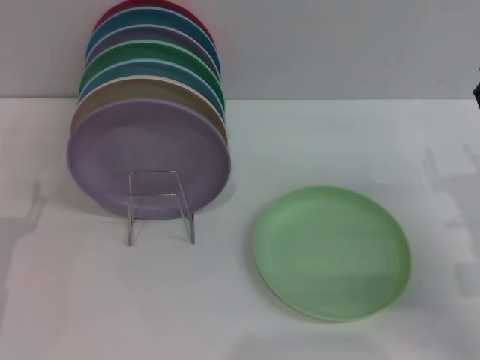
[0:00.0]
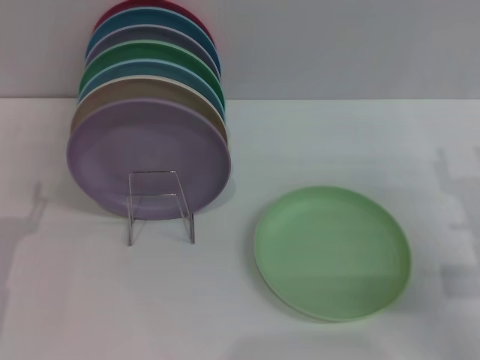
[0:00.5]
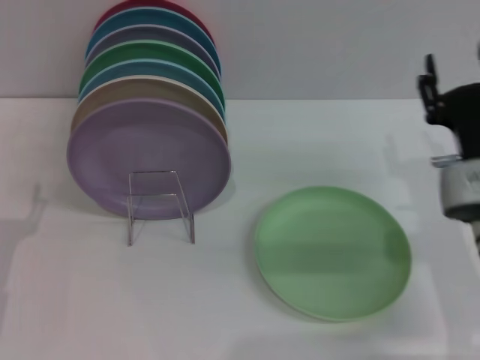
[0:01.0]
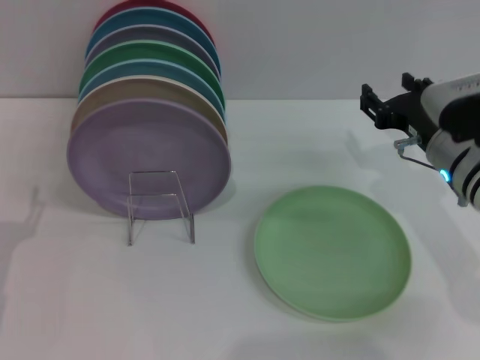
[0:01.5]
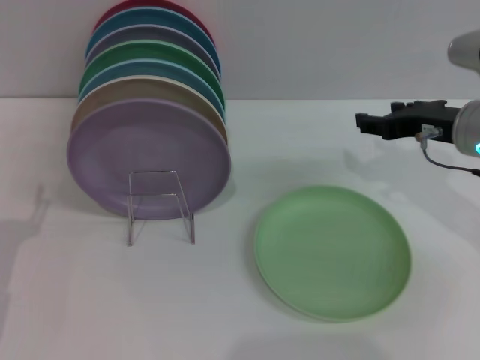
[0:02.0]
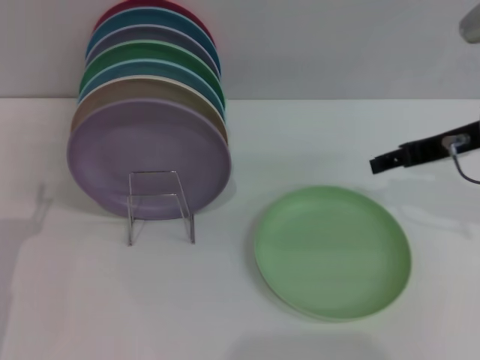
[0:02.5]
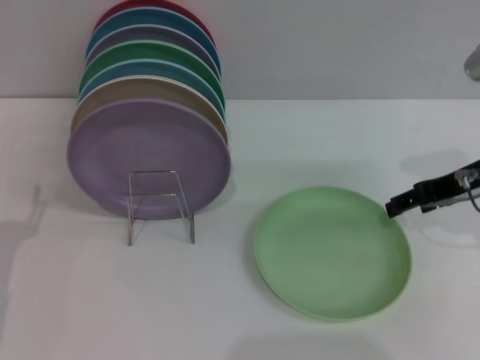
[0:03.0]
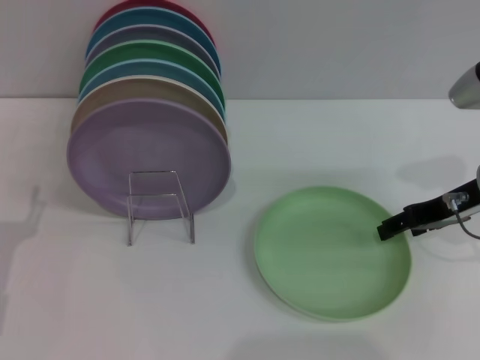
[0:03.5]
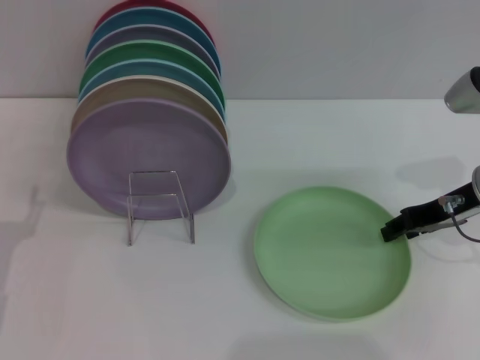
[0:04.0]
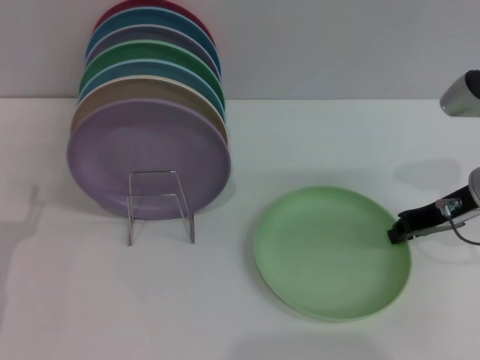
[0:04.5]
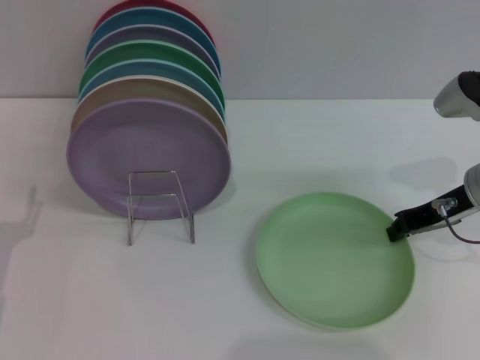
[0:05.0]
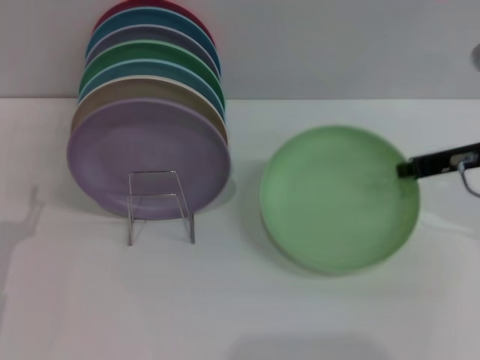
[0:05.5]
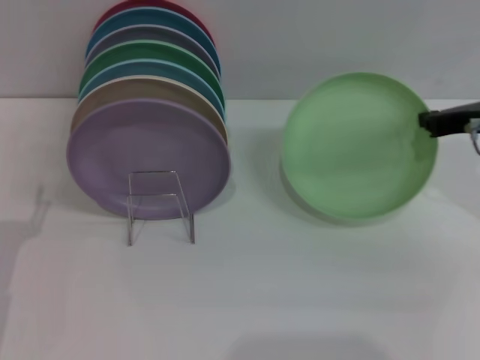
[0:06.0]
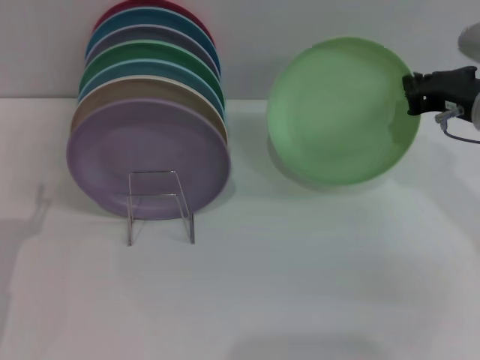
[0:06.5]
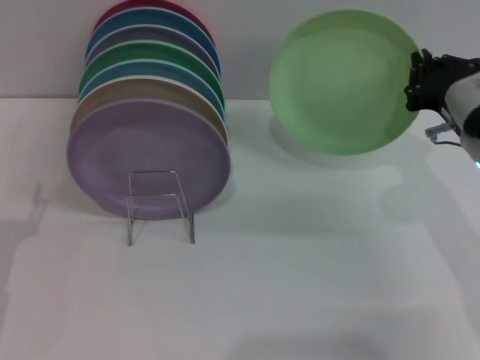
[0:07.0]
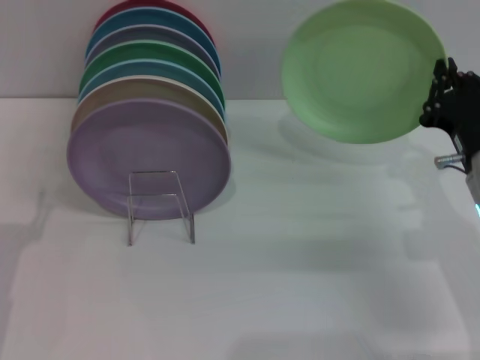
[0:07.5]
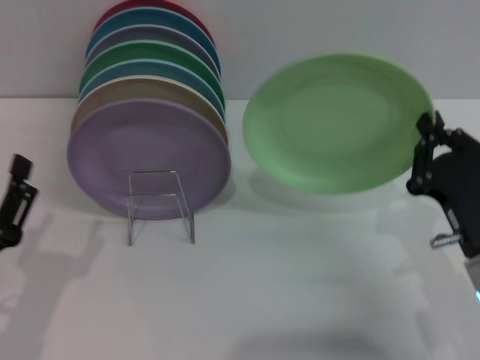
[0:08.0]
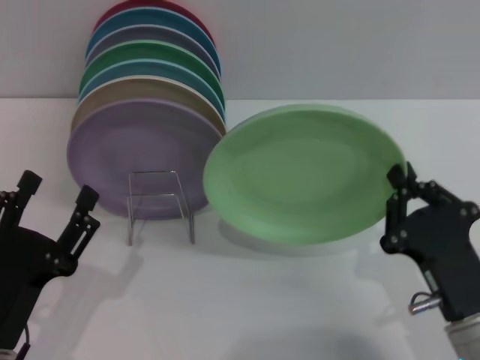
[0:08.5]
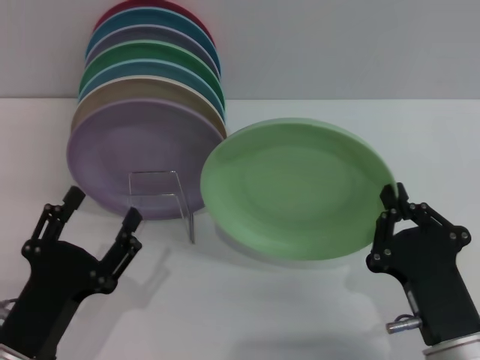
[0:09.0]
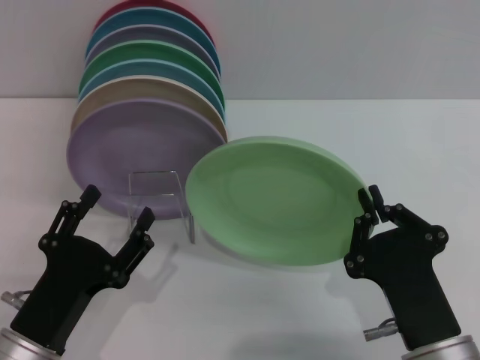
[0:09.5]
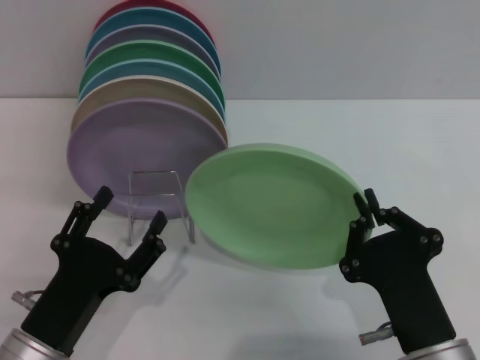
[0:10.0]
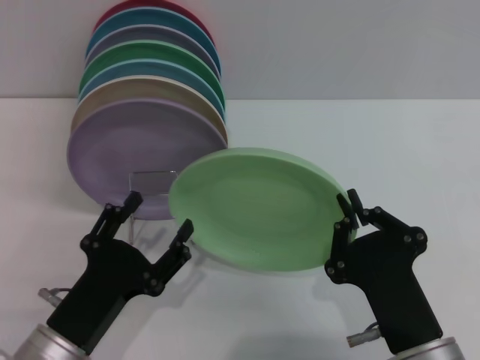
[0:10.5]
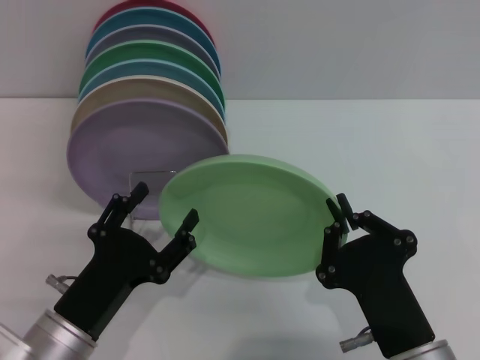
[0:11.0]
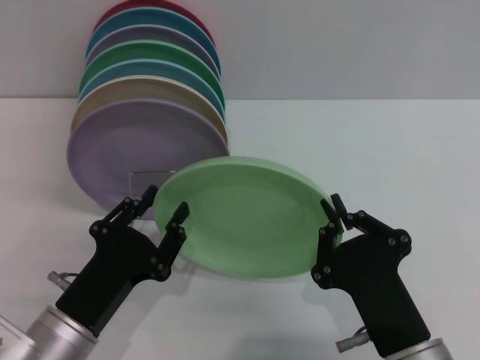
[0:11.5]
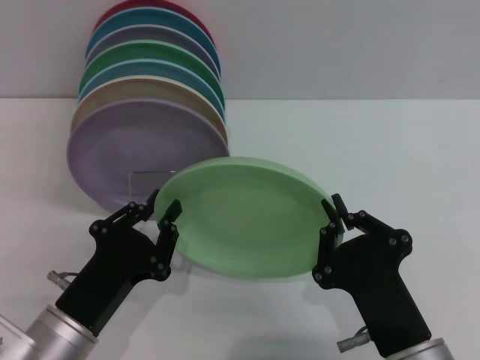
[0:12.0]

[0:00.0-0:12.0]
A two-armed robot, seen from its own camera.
Task of the whole recording: Grip the plate with one hand, pass it to the other, then set it on the shelf.
Step, 0:00.0 to 0:05.5: Pick up the plate with the right gripper.
0:00.0 to 0:02.0: The right gripper moves upward and forward, roughly 15 cm.
0:04.0 to 0:06.0: The right gripper closes up.
0:06.0 to 0:08.0: The right gripper travels backward, downward and to the left by some 20 cm. The left gripper moves about 5 cm.
0:08.0 to 0:10.0: The left gripper travels to the right by roughly 5 cm. The right gripper heads backward and to the left, covering about 10 cm.
0:10.0 to 0:12.0: The left gripper closes.

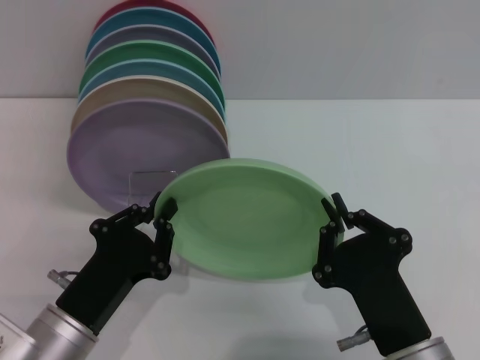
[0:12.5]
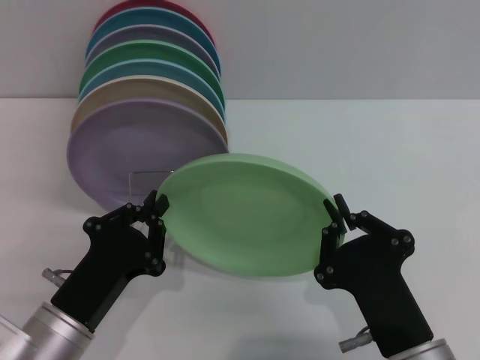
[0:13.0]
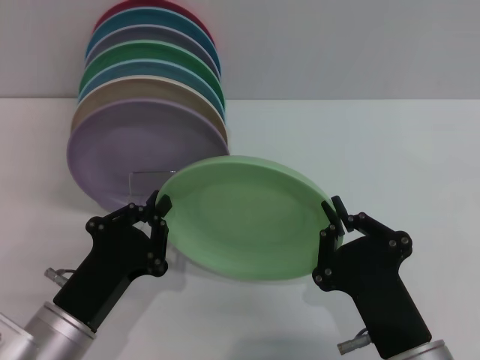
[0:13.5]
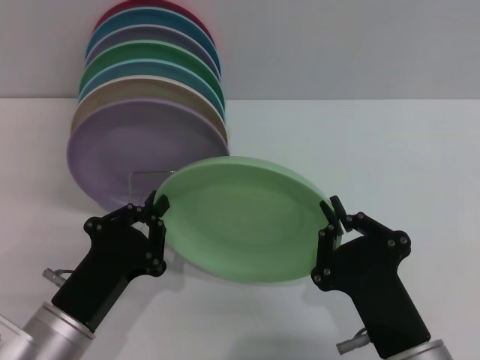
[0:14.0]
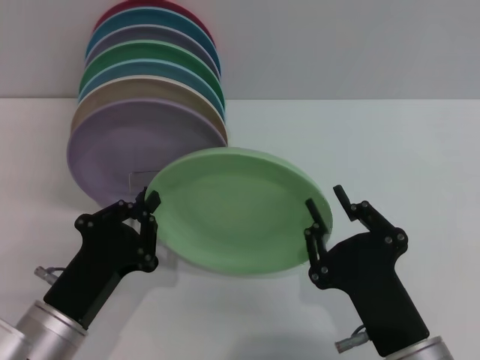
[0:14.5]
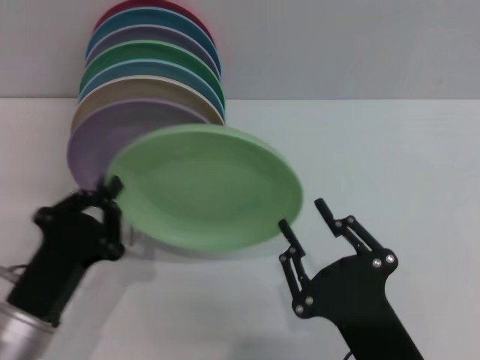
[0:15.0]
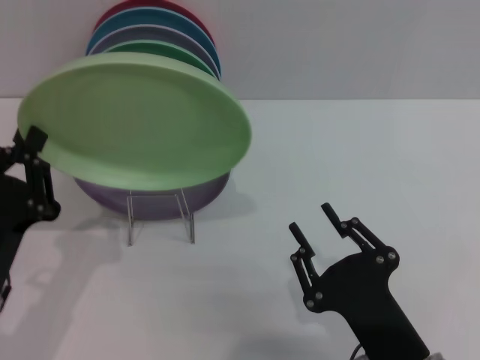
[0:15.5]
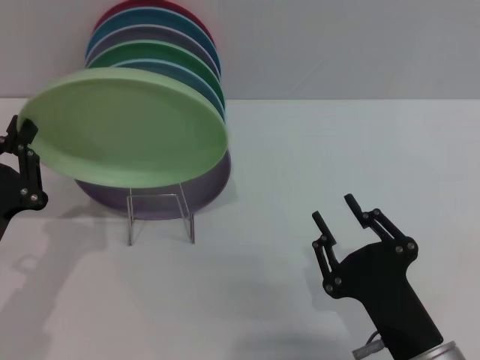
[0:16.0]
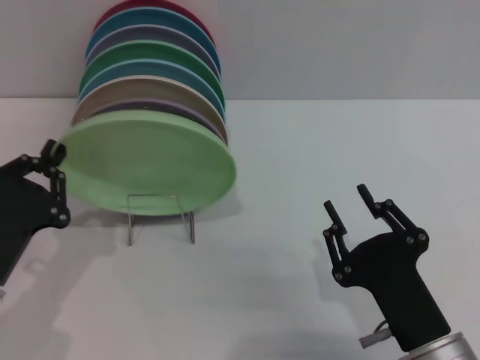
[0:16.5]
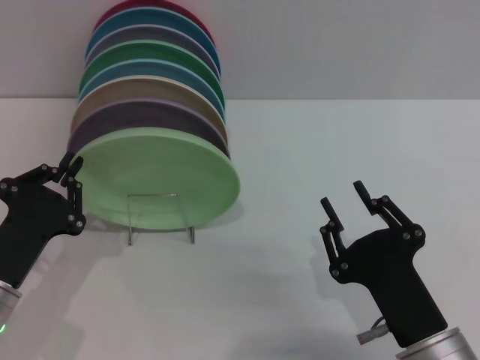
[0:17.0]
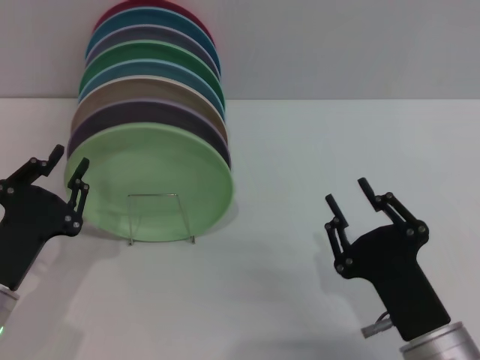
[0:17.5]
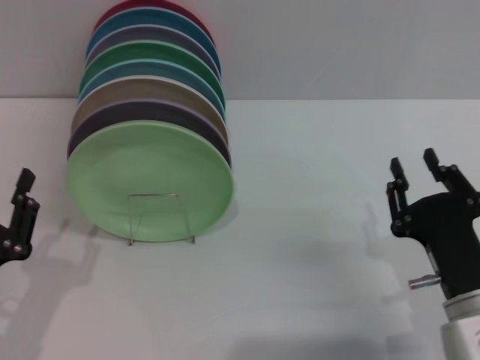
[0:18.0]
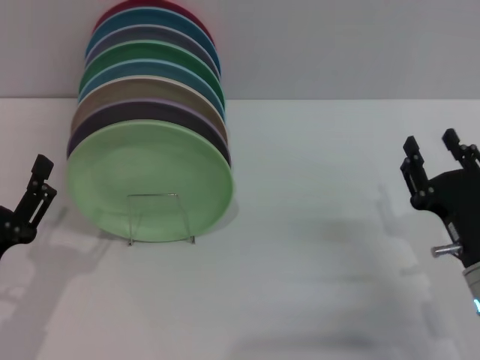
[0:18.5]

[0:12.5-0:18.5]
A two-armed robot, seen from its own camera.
Task of the whole recording: Grip the plate with one hand, pass it to the other, then set it on the shelf.
Step, 0:12.5 to 0:15.0: Pass the plate from the right gripper to the left gripper.
Step, 0:15.5 to 0:17.5: Place the plate on the shelf with the left gripper.
0:12.5 to 0:14.5: Neither gripper changes place.
0:14.5 to 0:16.5: The right gripper opens its fingers, while the left gripper shifts some 5 cm to the left.
0:16.5 to 0:18.5: The left gripper opens its fingers, while the right gripper travels to the right and forward by some 10 cm.

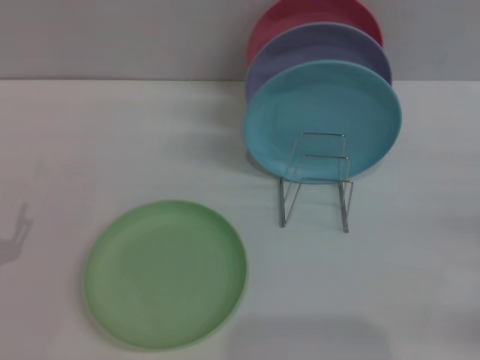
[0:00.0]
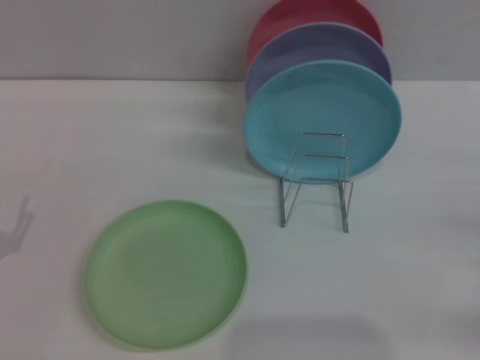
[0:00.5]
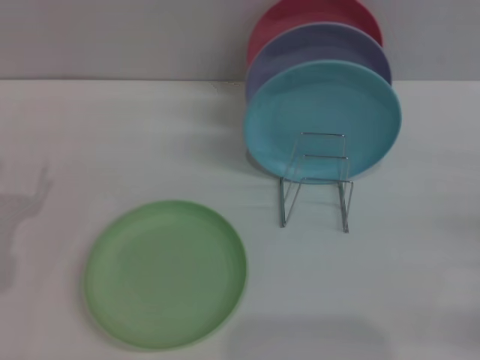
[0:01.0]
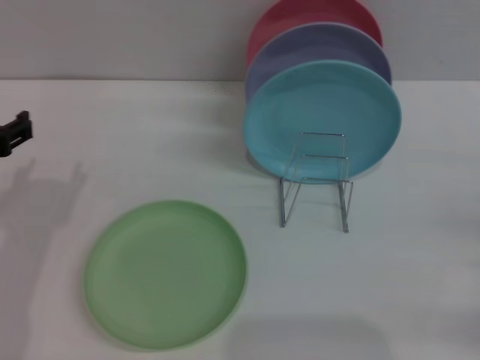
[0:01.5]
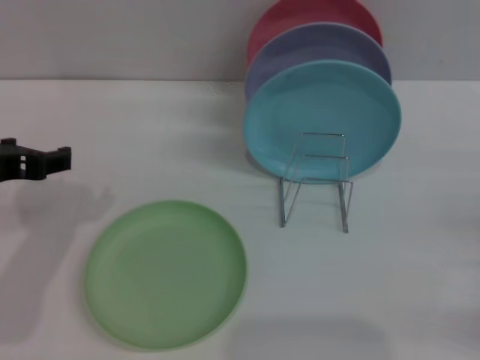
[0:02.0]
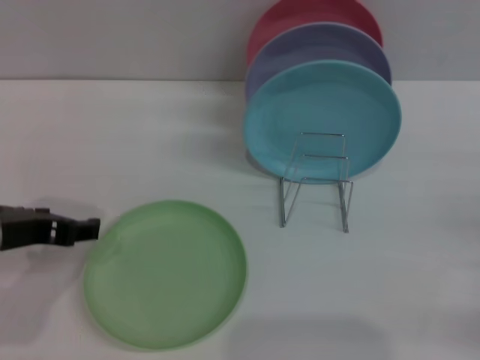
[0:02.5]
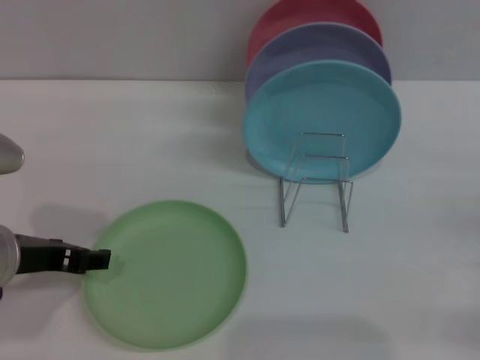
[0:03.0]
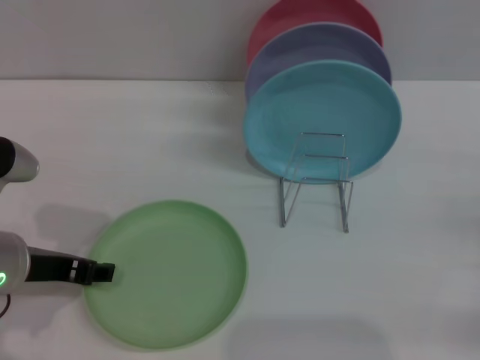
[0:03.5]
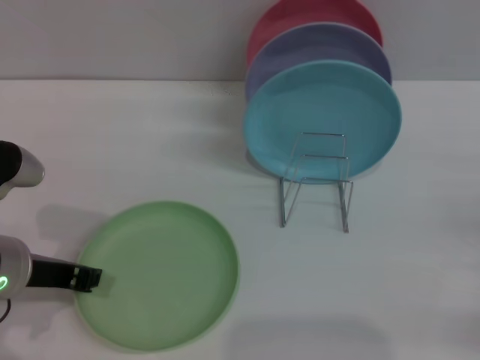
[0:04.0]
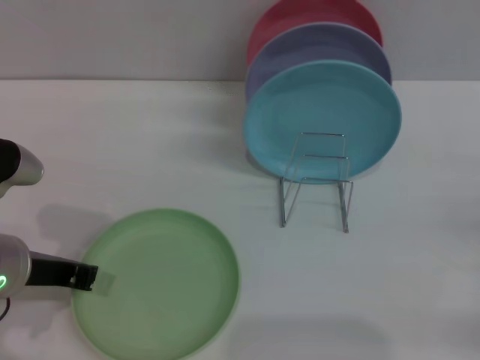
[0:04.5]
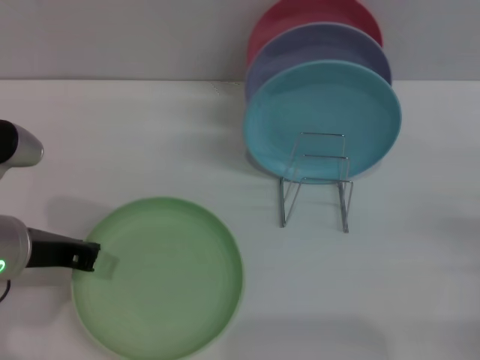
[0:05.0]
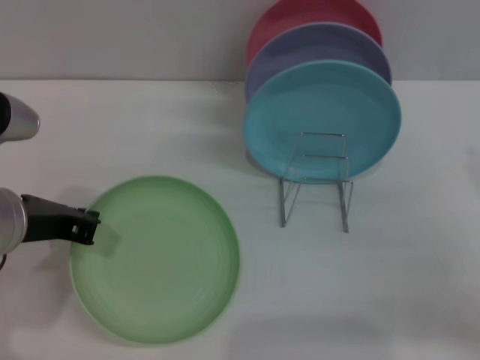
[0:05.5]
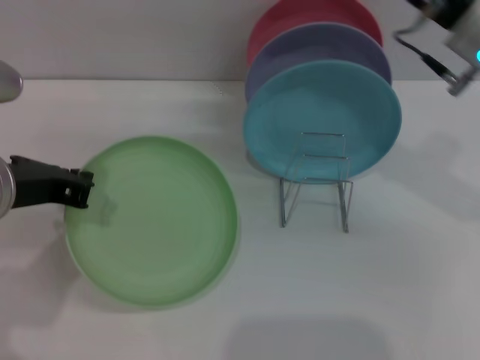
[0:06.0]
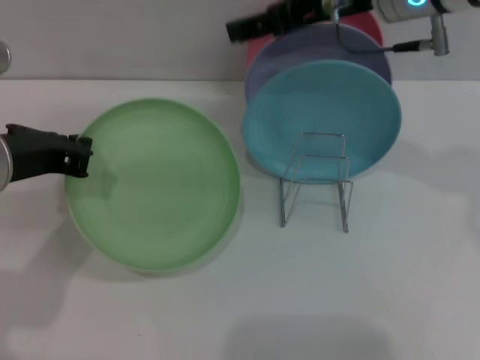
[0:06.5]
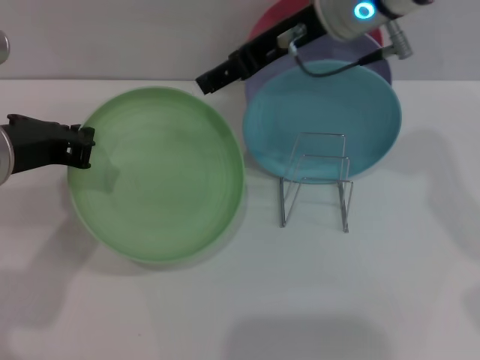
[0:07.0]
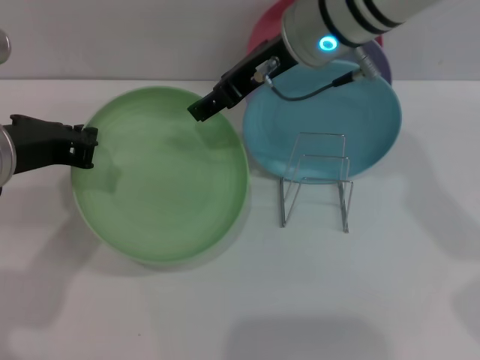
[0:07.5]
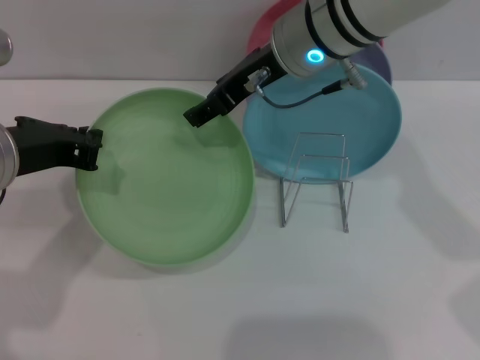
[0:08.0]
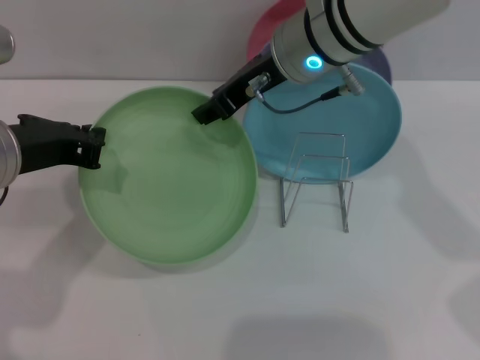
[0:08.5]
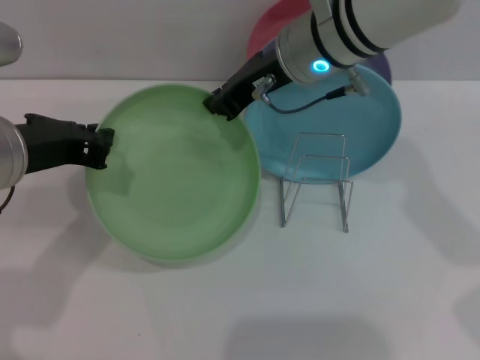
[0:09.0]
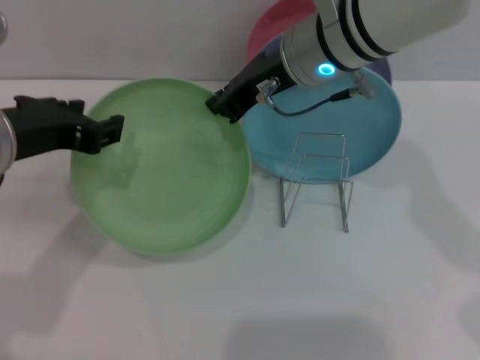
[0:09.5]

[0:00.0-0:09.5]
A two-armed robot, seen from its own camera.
Task of the whole recording: Grip the plate with one hand, pass it to the other, then set it on the shelf.
Step, 0:00.0 to 0:06.0: Pick up the plate with the left gripper.
0:00.0 to 0:02.0: The left gripper travels upward, forward and to the right by roughly 20 cm.
0:02.0 to 0:04.0: The left gripper is displaced downward by some 5 cm, and closes its fingers.
0:04.0 to 0:05.5: The right gripper goes roughly 10 cm upward and to the left. The left gripper closes its fingers.
0:05.5 to 0:07.5: The right gripper travels to the left, forward and upward by approximately 30 cm.
0:07.5 to 0:09.5: The left gripper opens up. The right gripper closes.
